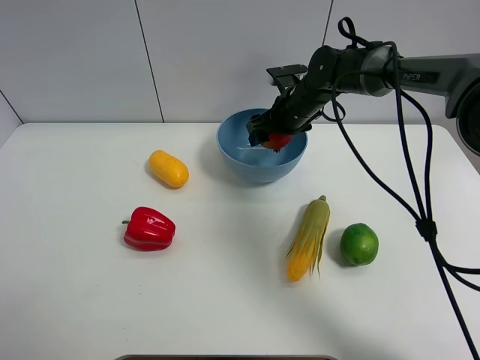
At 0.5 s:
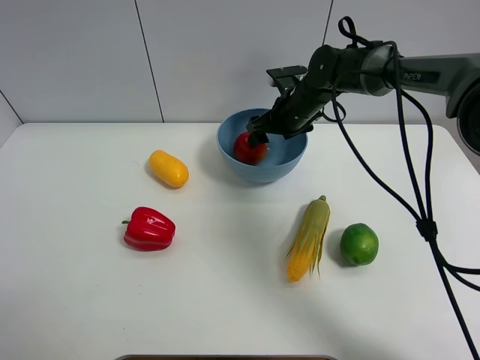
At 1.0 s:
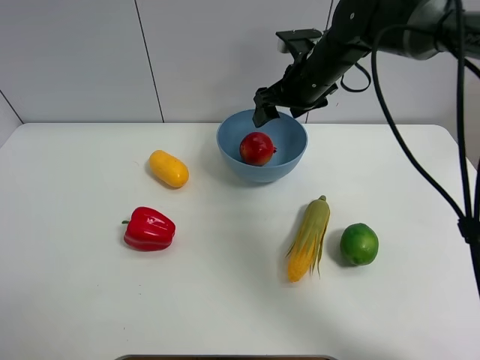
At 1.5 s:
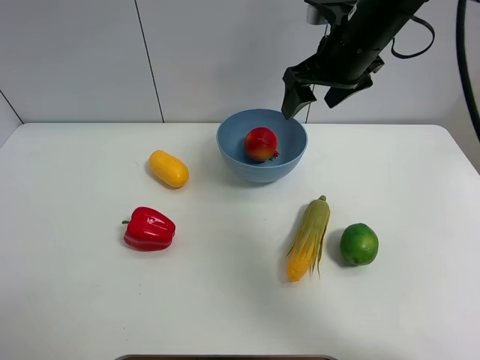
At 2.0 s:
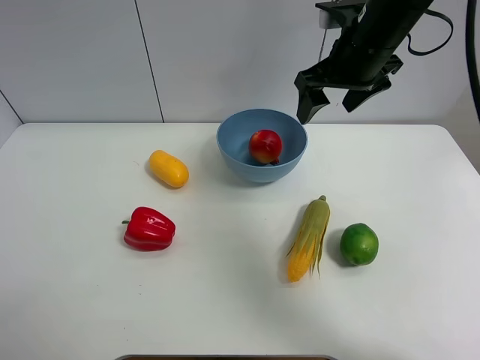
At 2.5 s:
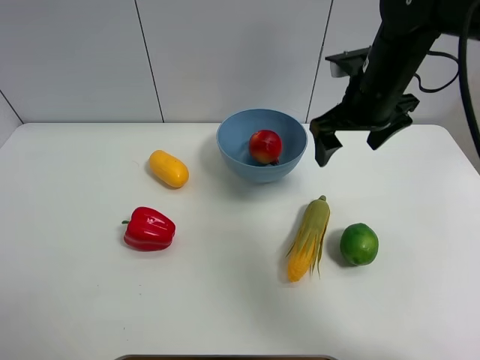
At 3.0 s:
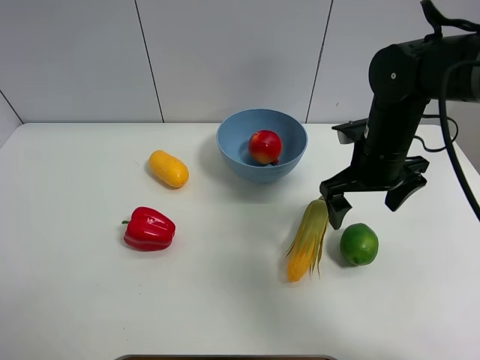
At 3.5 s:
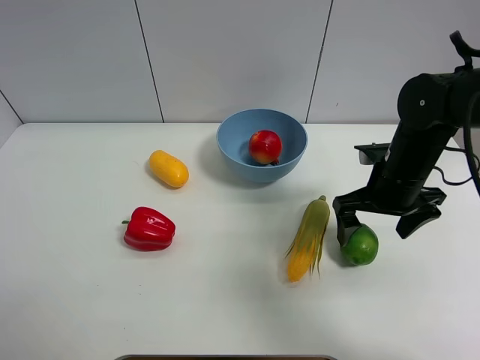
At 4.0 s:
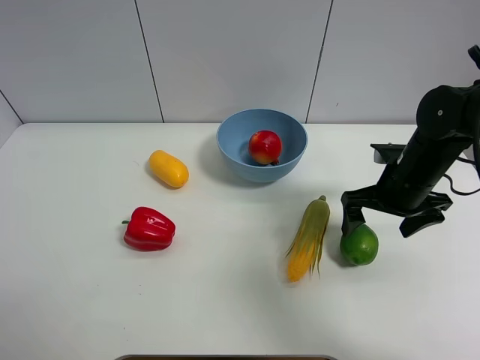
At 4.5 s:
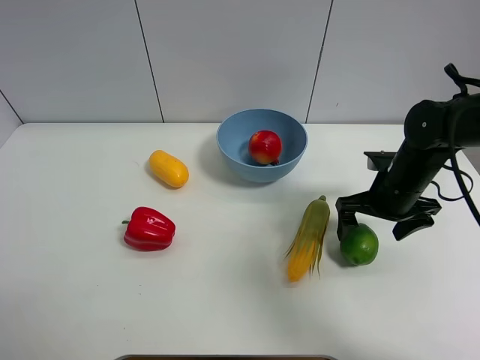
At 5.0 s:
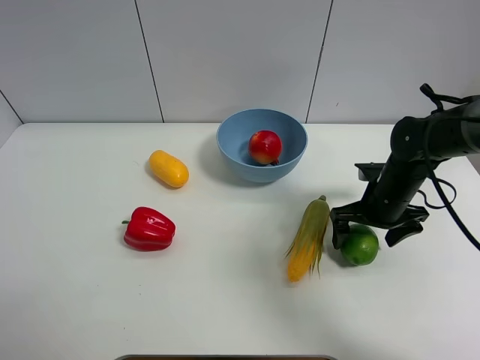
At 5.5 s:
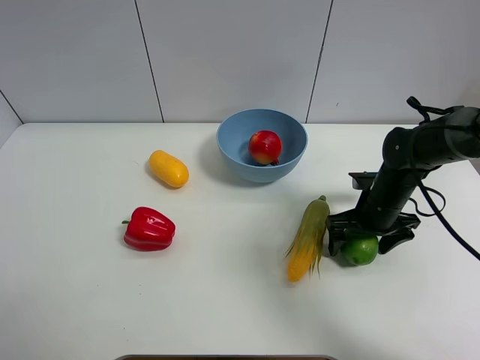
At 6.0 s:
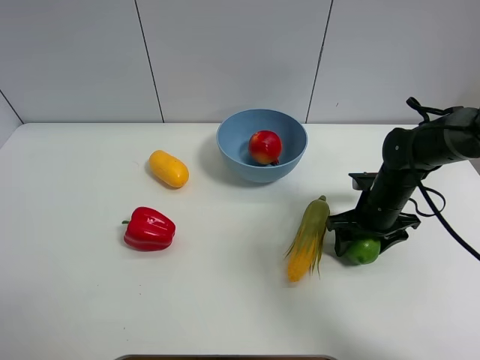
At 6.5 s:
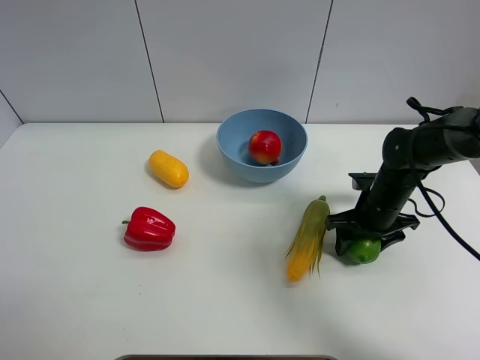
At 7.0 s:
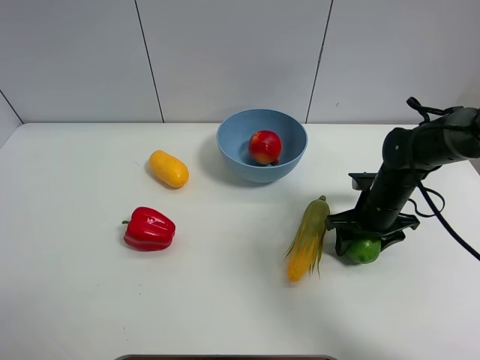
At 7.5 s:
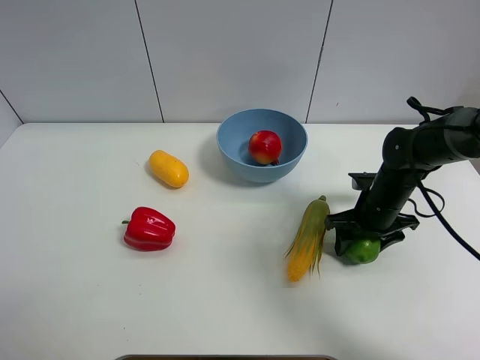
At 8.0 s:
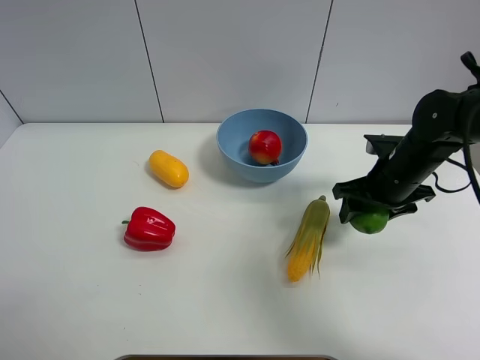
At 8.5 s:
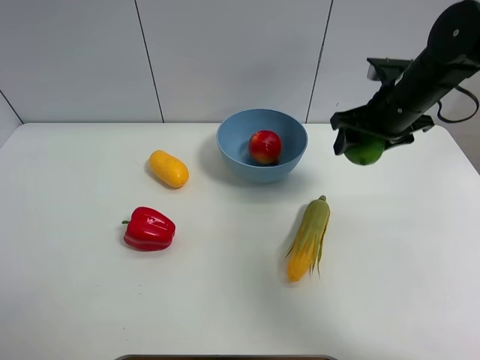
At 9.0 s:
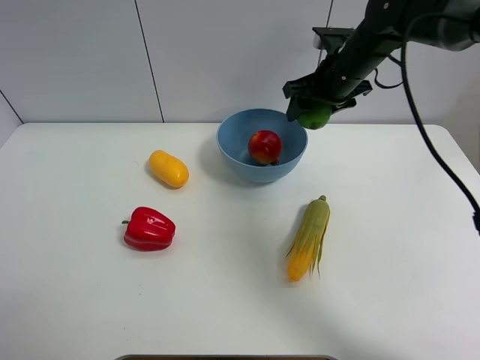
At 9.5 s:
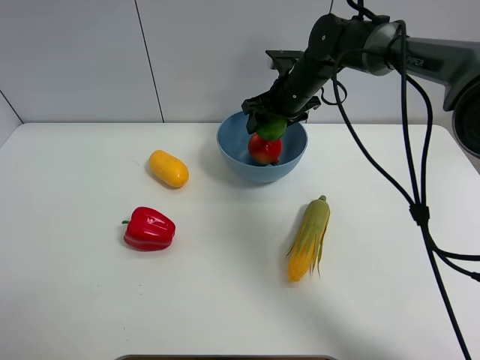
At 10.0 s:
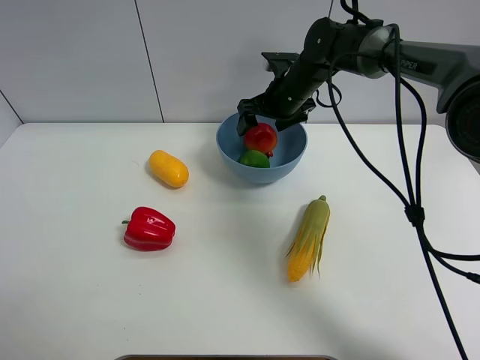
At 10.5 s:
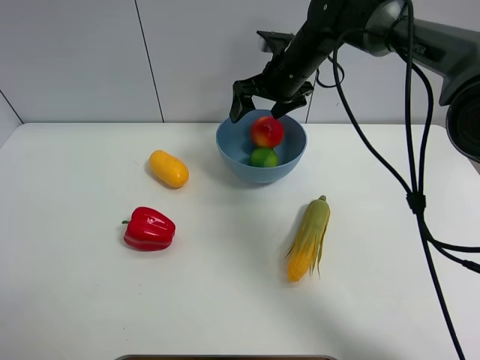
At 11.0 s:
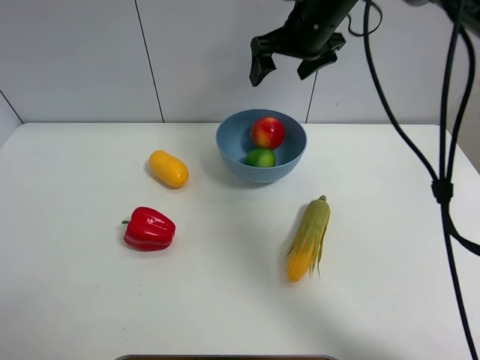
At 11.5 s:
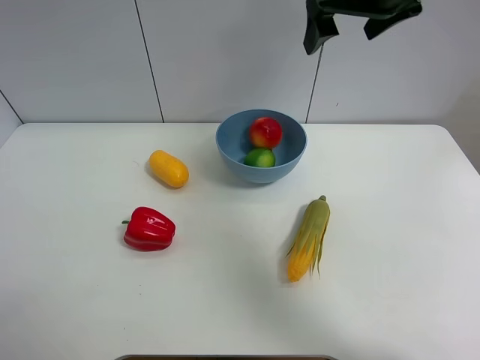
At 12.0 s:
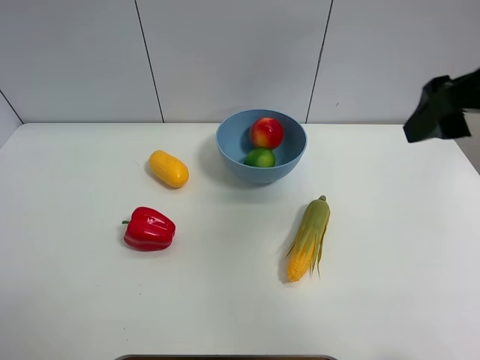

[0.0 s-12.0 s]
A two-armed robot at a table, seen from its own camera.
Task of the whole recording: Put the three fruits on the table into a bowl.
Step, 1.0 to 6.0 s: Grasp the green lemon with right gripper.
Step, 6.5 to 10.0 s: Place the green lemon in the blue bowl with right gripper.
0.0 to 2.0 s: The right gripper moves upward and backward, about 20 cm.
2.0 to 4.0 s: The right gripper is displaced downward, to the right and backward by approximately 20 cm, and opens its fingers.
4.0 to 6.0 s: The right gripper is displaced downward by approximately 10 cm, and closes.
6.0 to 8.0 s: The right gripper goes approximately 10 cm upward.
8.0 to 10.0 s: The right gripper goes roughly 20 cm forward and to the left, and opens up.
10.0 to 12.0 s: The right gripper moves backward, upward and to the right, approximately 35 cm.

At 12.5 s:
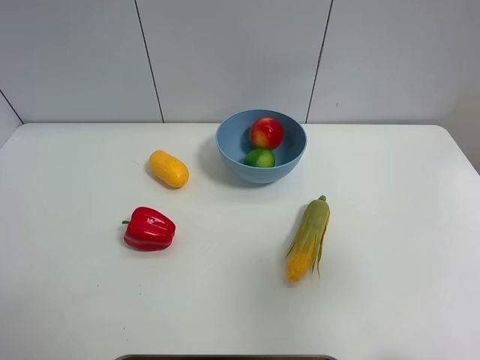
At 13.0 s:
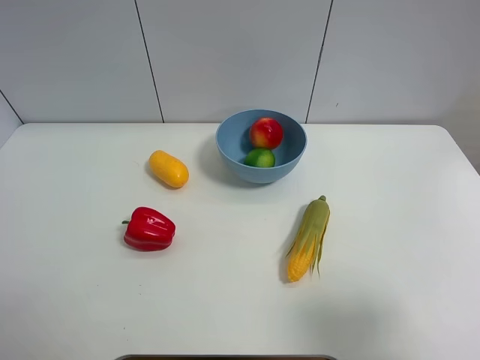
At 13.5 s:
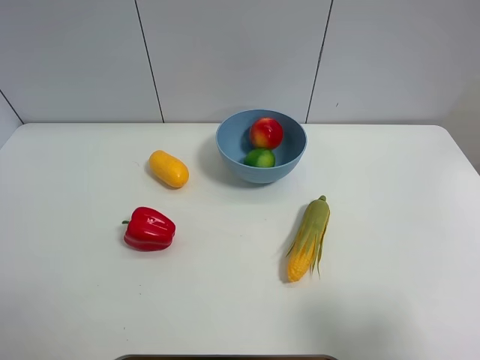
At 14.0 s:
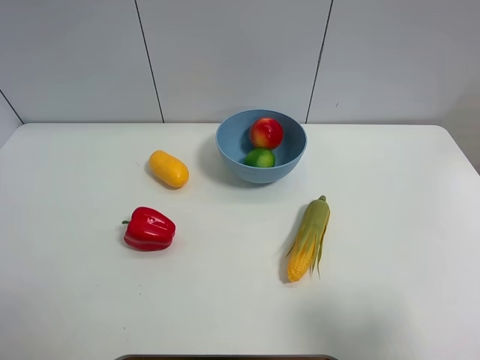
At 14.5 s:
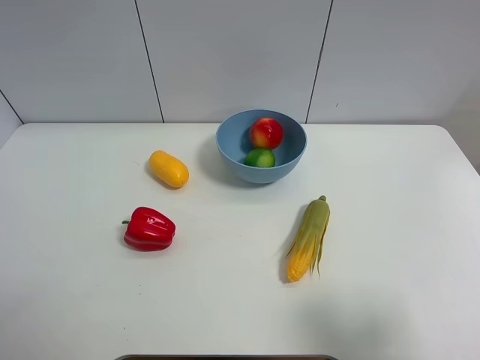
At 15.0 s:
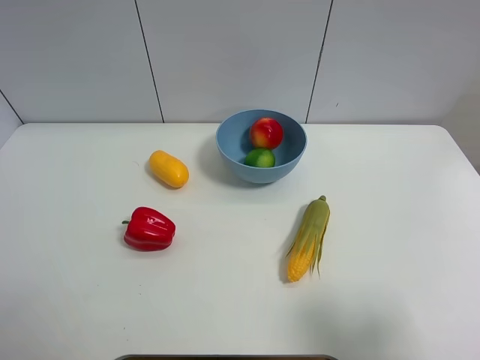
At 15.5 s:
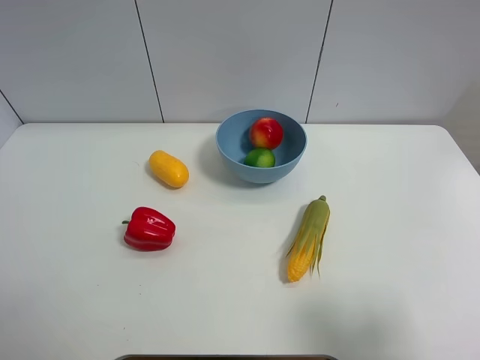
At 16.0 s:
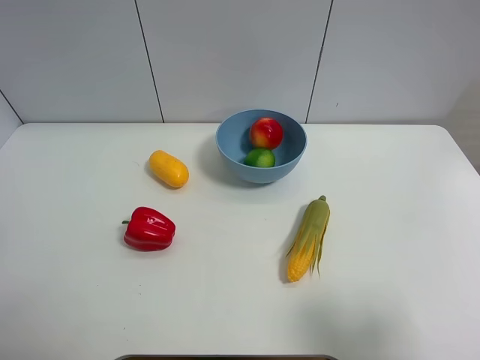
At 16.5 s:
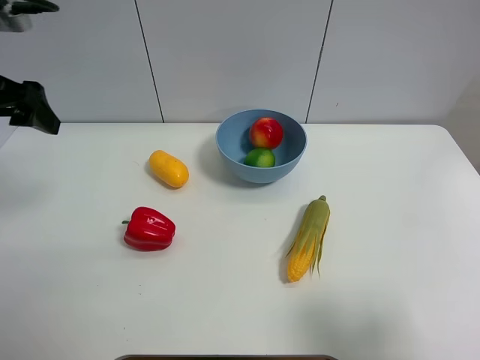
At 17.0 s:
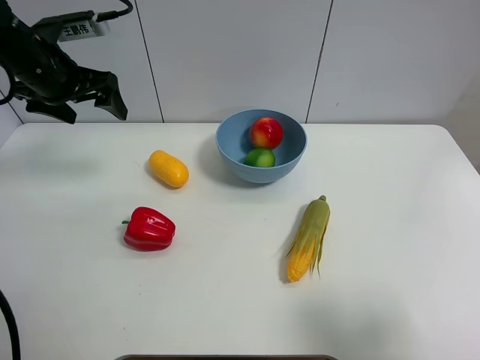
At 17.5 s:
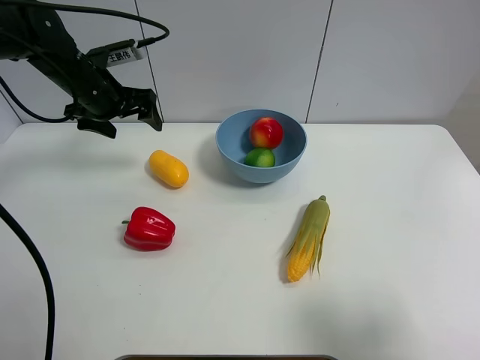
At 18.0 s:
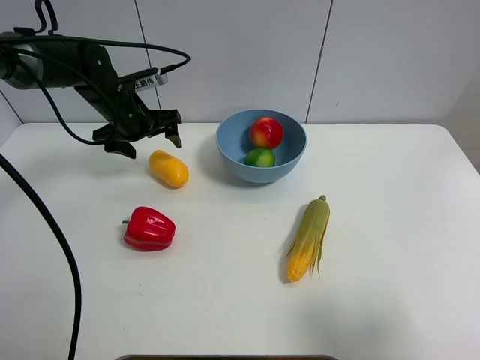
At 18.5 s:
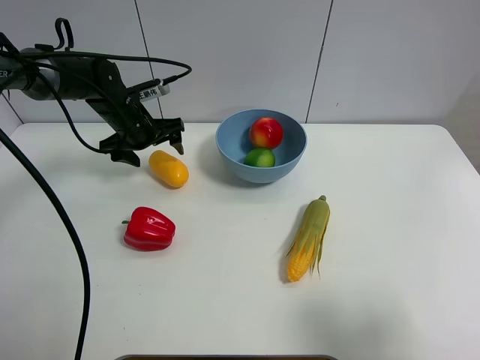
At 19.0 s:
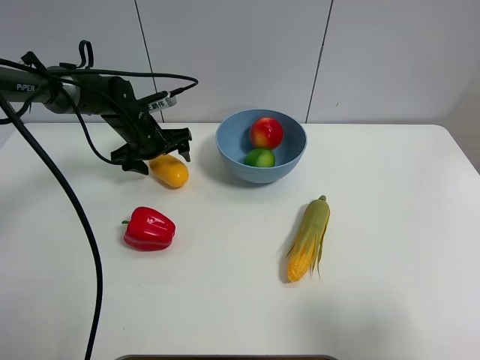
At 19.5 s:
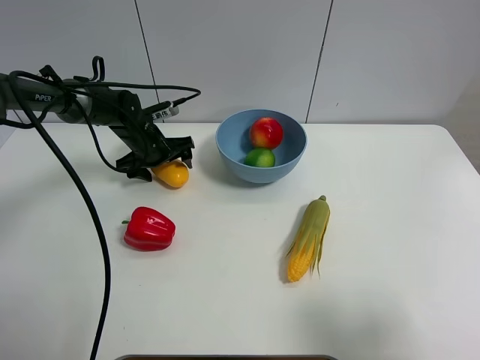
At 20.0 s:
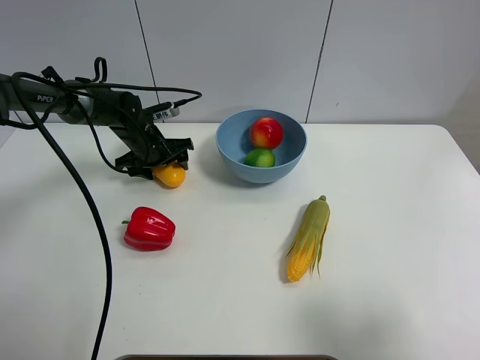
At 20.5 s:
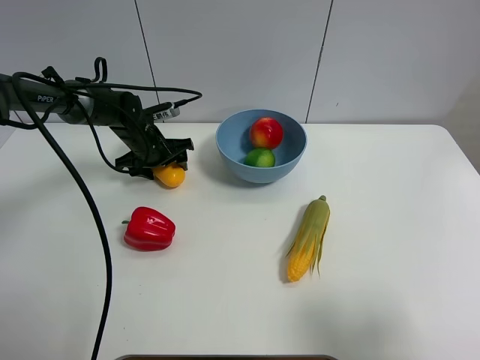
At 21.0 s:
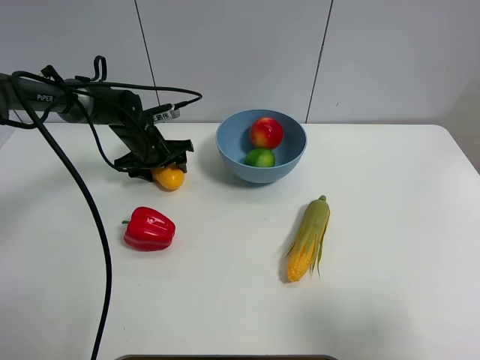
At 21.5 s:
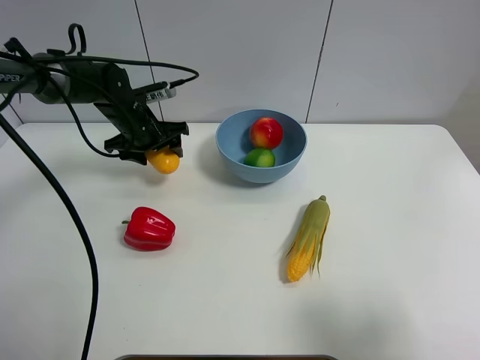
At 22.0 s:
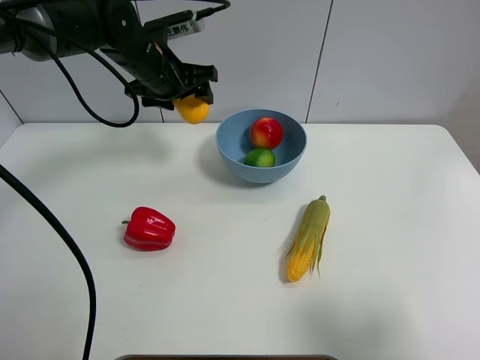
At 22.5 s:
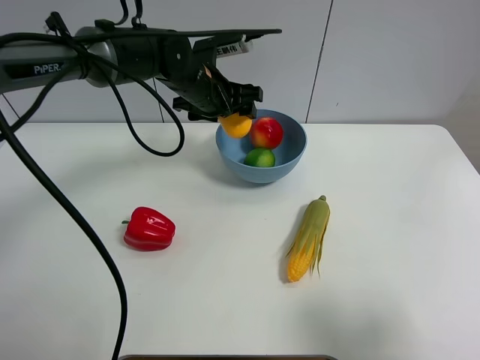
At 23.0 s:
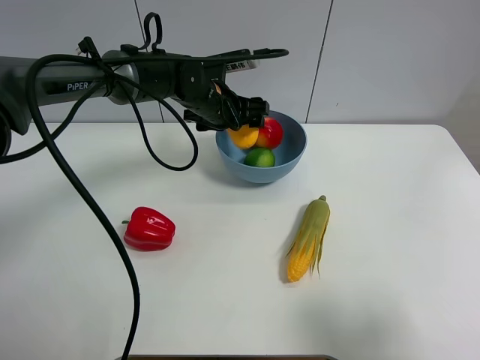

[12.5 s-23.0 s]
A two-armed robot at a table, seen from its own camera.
Task of the whole recording: Put the three fruits on the table into a bowl.
Step, 12.5 to 20.0 s: Grasp the mango with left gripper.
12.5 to 14.5 s: The right gripper is displaced downward and backward by roughly 10 cm.
14.5 to 16.5 s: The left gripper moves forward, about 30 cm.
16.5 to 19.0 s: The left gripper goes some 30 cm downward, forward and to the right.
19.0 to 21.0 s: The left gripper closes up.
21.0 to 23.0 s: The left gripper moves to the right and upward, roughly 15 cm, and opens.

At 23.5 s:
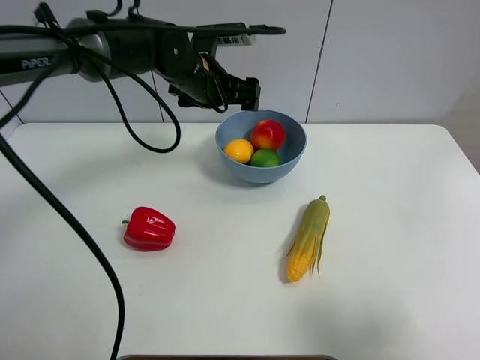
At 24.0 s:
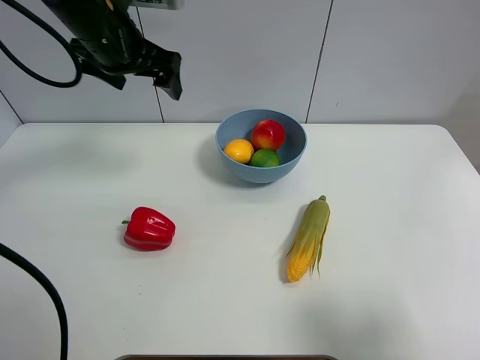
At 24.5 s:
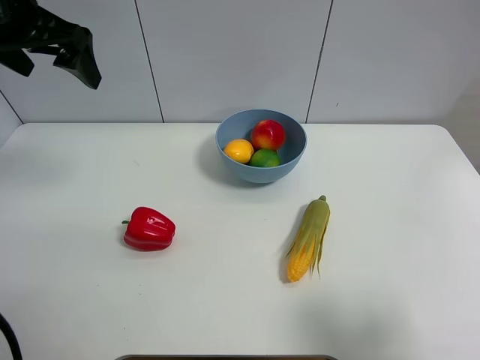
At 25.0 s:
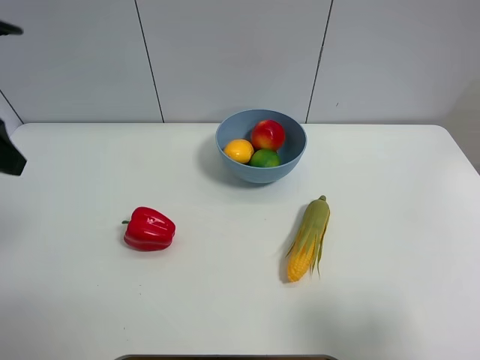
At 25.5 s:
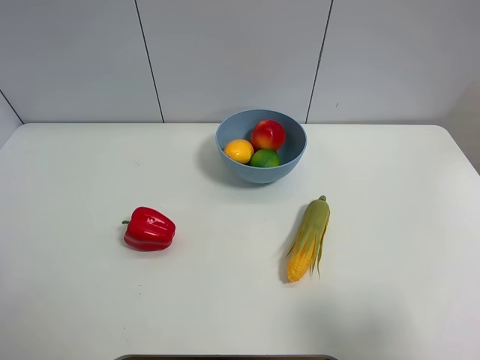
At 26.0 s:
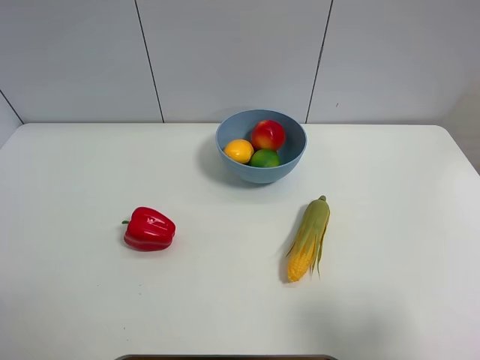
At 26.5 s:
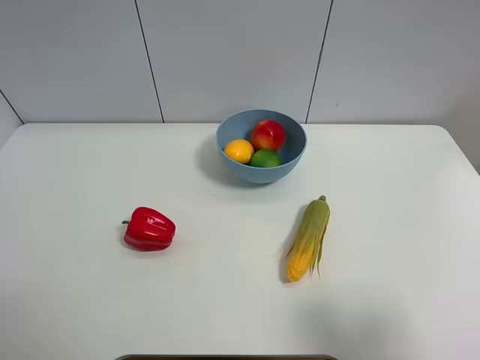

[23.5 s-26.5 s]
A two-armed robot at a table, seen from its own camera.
Task of the whole recording: Put the three fruits on the table into a bowl.
23.5 to 25.0 s: The left gripper is displaced to the left, backward and upward by roughly 35 cm.
25.0 to 26.5 s: The left gripper heads backward and downward, covering some 20 cm.
